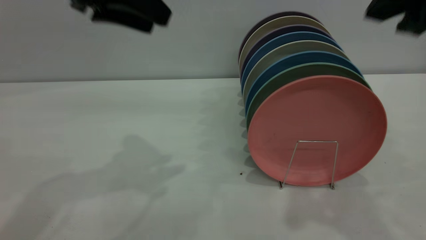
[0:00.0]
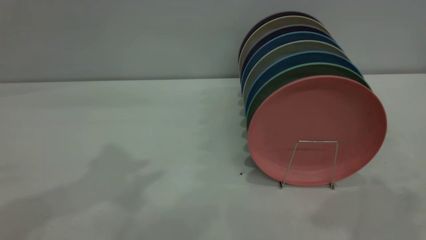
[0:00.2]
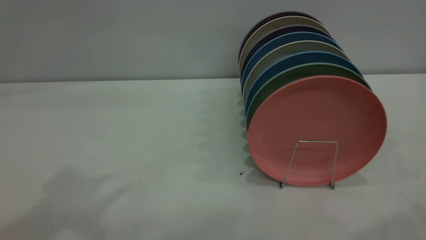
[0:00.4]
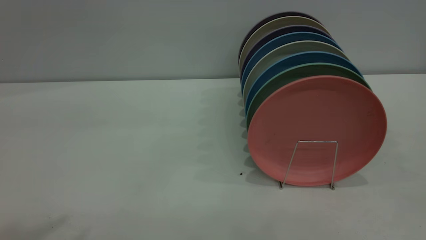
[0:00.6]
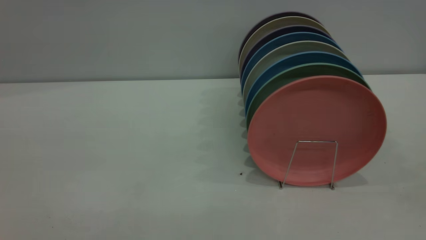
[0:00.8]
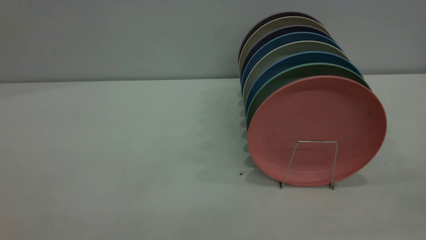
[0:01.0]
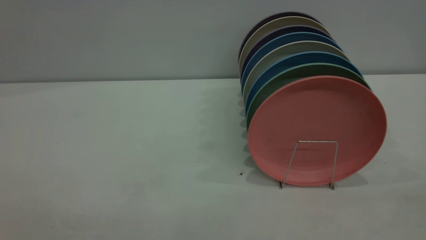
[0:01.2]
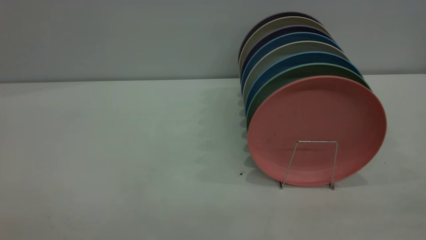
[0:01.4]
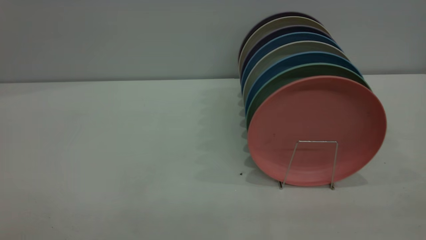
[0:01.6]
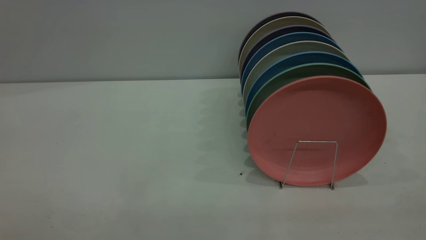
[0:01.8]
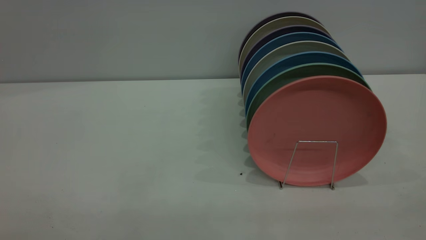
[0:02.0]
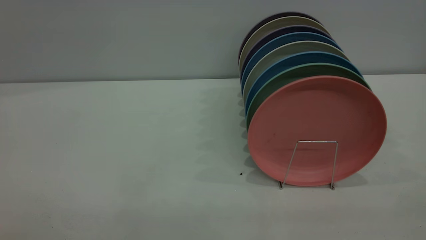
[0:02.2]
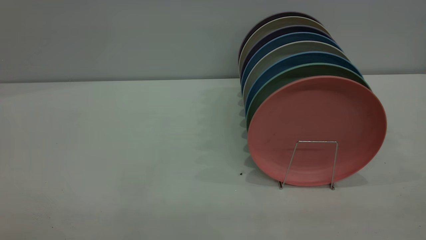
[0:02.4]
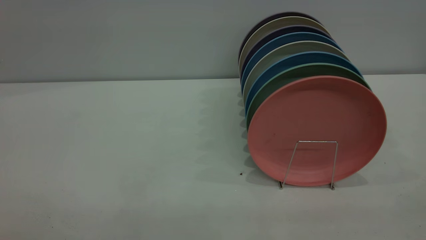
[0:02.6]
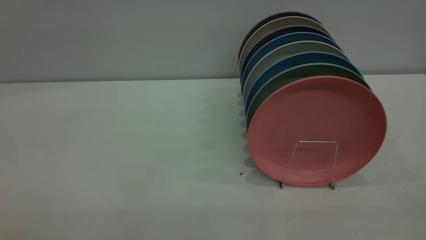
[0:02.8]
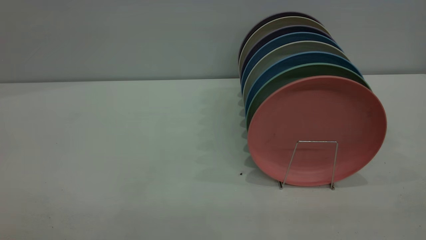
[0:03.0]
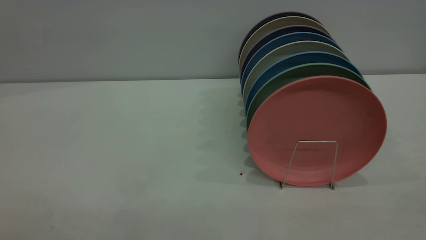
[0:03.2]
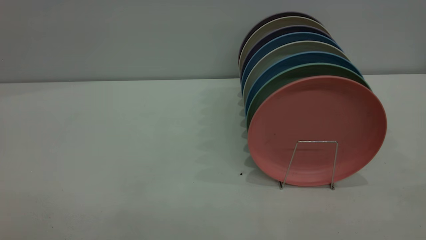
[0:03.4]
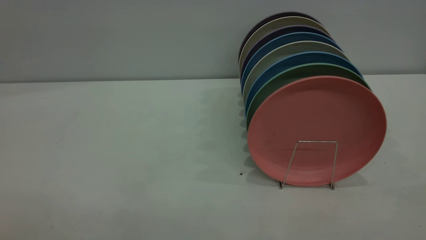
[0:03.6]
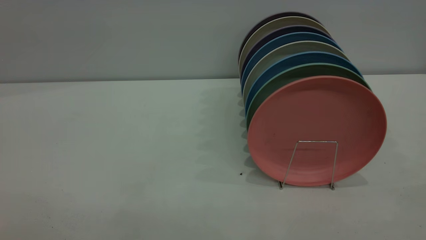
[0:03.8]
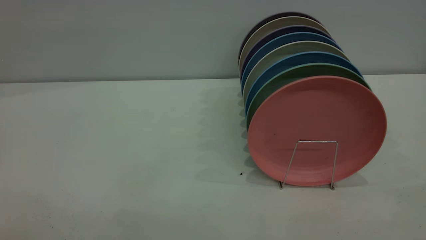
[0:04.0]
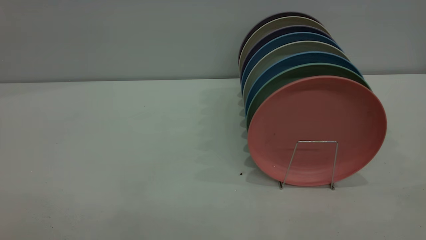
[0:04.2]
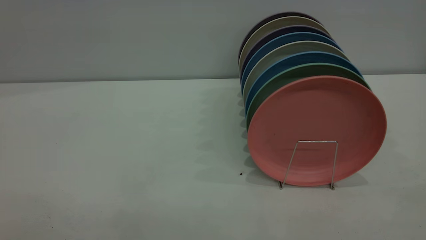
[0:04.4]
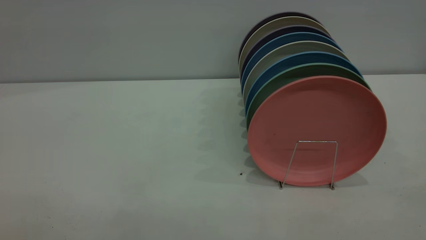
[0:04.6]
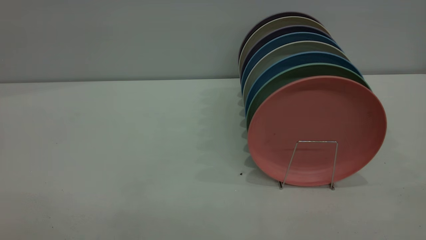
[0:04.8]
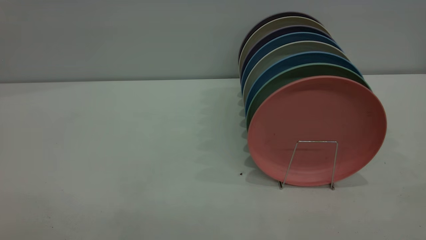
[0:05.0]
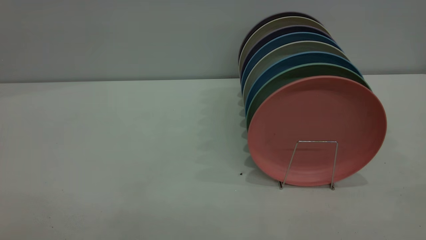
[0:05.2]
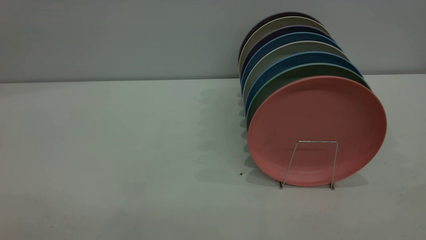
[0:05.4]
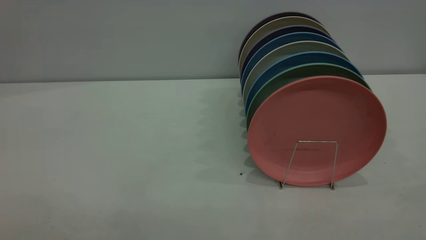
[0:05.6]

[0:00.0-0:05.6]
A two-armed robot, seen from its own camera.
Task of the whole recording: put the plate on the plate rack.
0:00.0 to 0:01.4: The right gripper goes roughly 30 cm backward and to the right. The left gripper is displaced backward by about 35 cm.
0:04.2 to 0:05.6: Both grippers stay put.
